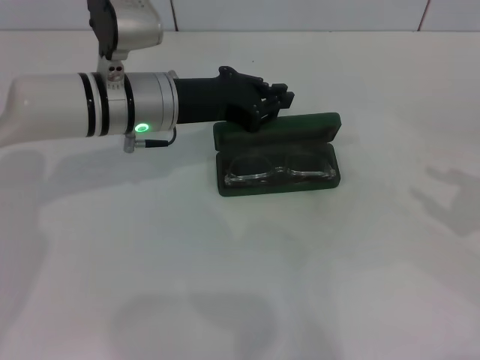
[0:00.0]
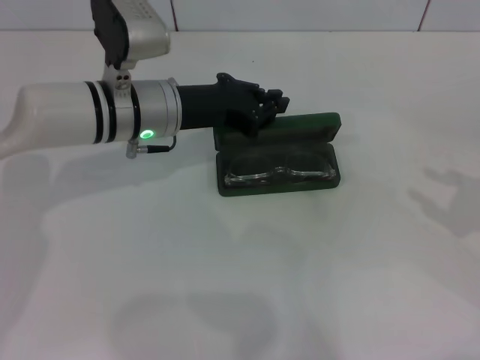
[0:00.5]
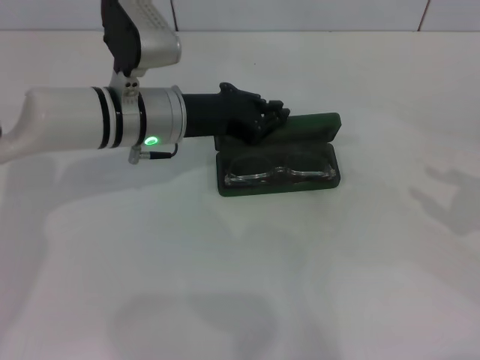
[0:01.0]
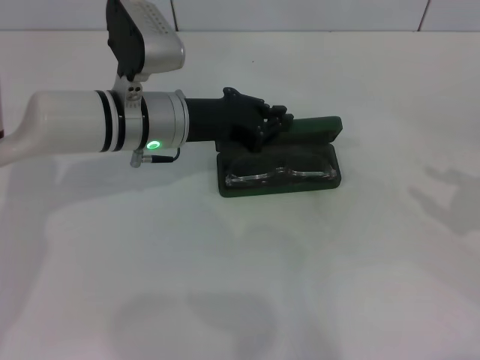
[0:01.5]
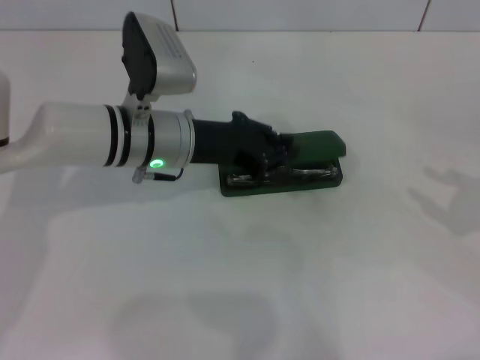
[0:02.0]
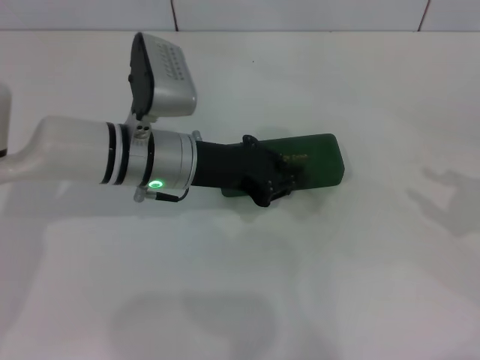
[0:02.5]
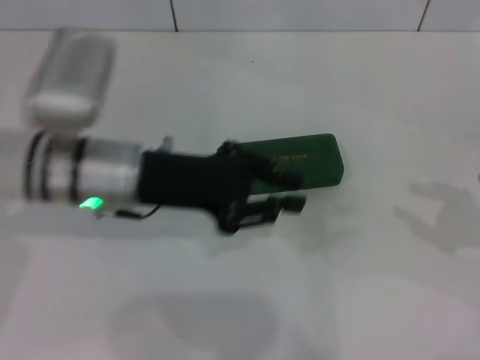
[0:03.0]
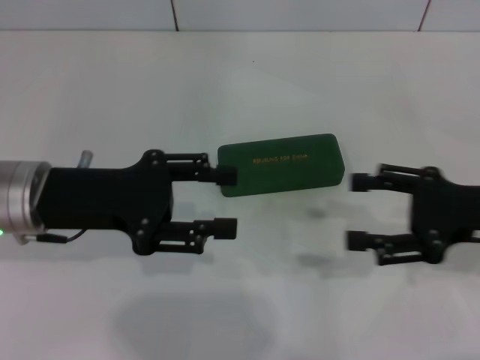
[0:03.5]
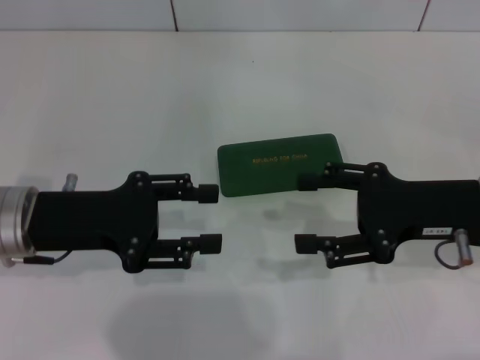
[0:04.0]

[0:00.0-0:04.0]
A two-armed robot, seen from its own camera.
Step, 0:00.0 to 0:02.0: Close the glasses case with your left hand.
0:00.0 to 0:02.0: There are only small adjustments of the grippers.
0:02.0 to 0:04.0: The left gripper travels to the left and backward by some 15 cm, and opens. Meanwhile the right gripper goes roughly 15 cm to the left, and opens its fingers.
